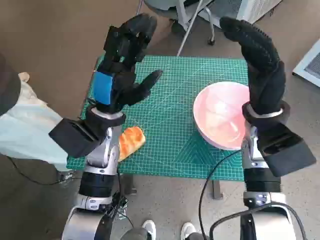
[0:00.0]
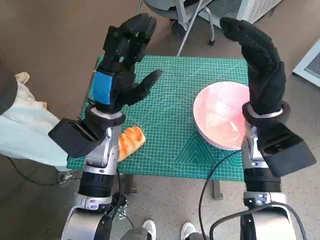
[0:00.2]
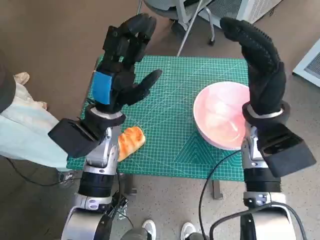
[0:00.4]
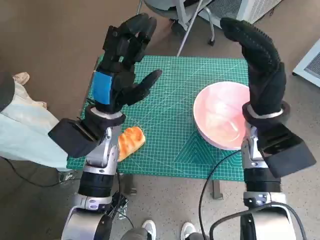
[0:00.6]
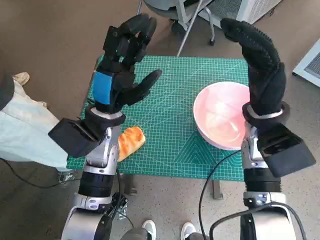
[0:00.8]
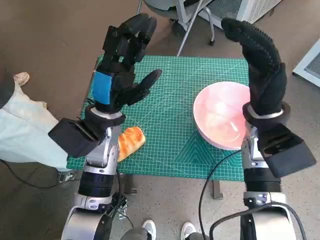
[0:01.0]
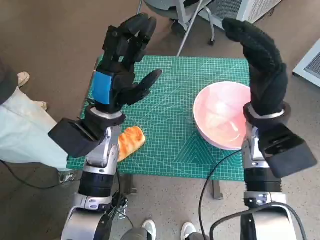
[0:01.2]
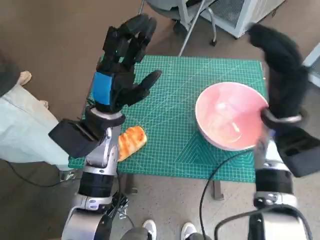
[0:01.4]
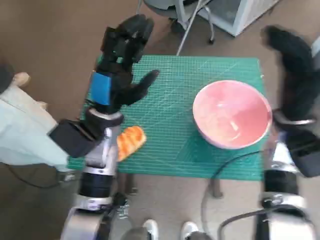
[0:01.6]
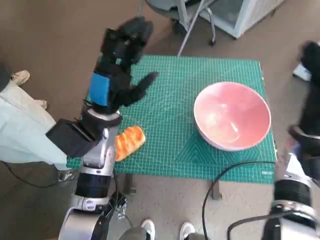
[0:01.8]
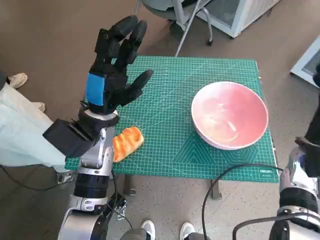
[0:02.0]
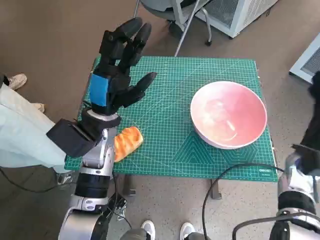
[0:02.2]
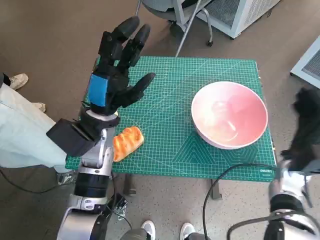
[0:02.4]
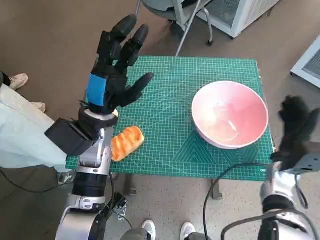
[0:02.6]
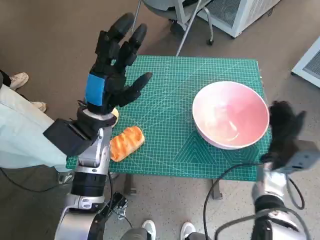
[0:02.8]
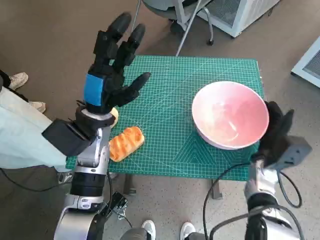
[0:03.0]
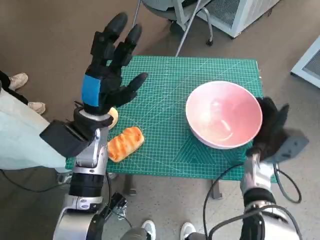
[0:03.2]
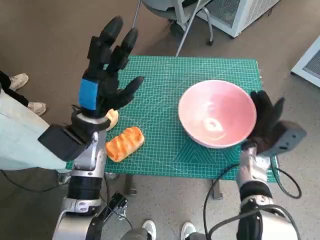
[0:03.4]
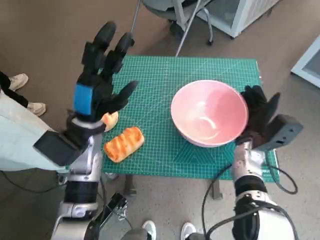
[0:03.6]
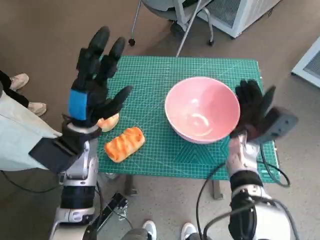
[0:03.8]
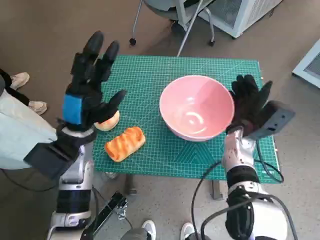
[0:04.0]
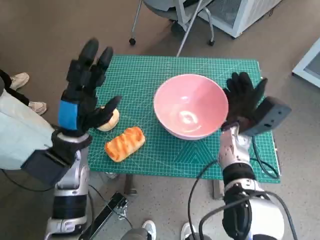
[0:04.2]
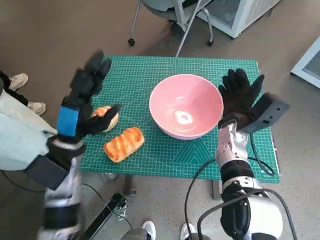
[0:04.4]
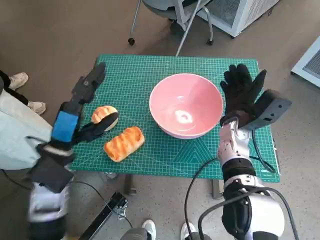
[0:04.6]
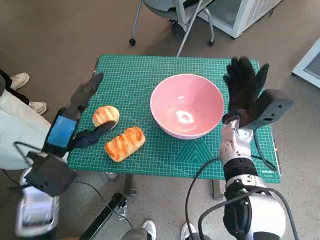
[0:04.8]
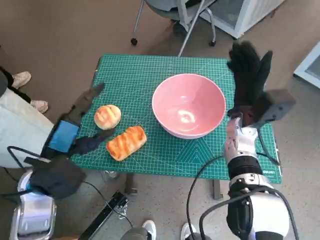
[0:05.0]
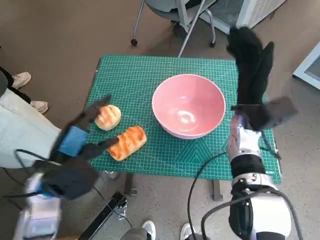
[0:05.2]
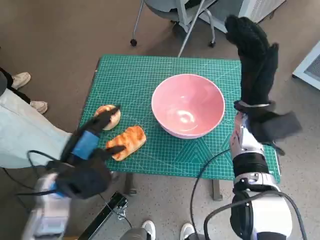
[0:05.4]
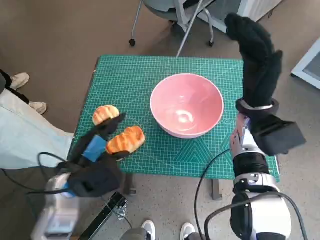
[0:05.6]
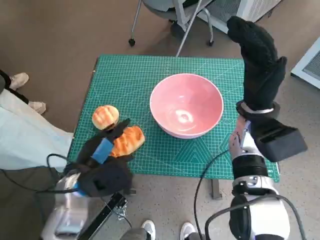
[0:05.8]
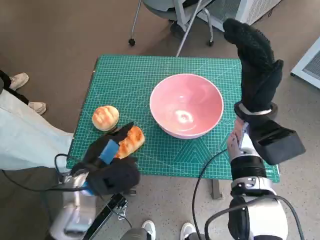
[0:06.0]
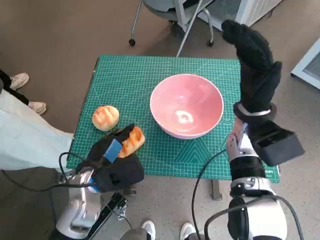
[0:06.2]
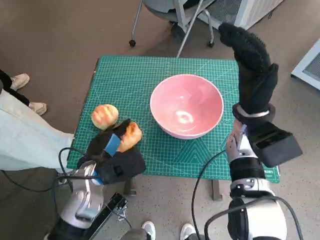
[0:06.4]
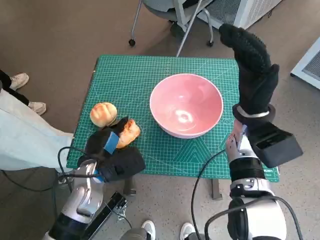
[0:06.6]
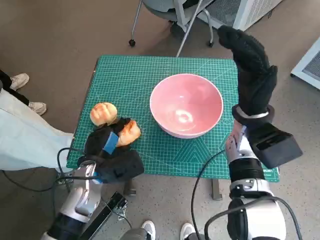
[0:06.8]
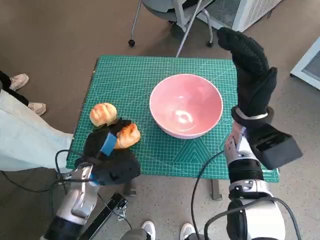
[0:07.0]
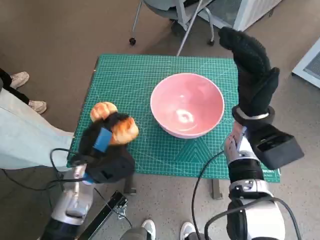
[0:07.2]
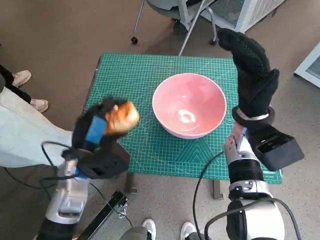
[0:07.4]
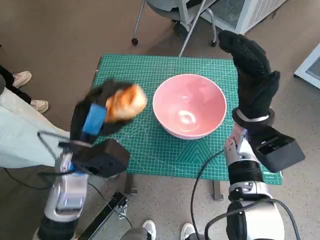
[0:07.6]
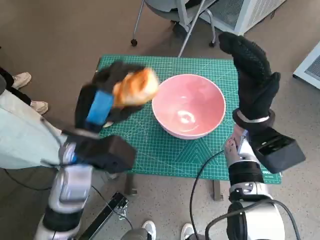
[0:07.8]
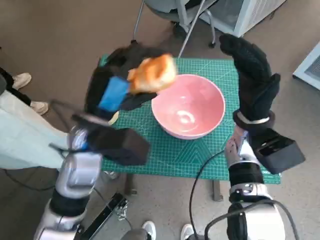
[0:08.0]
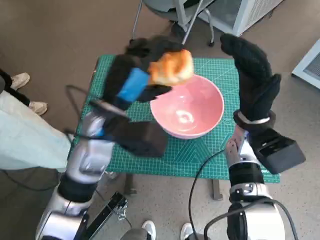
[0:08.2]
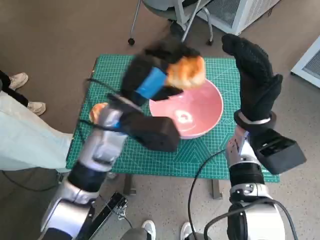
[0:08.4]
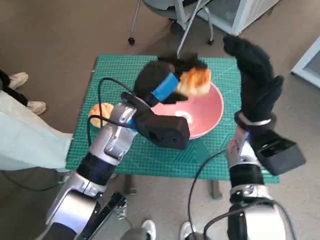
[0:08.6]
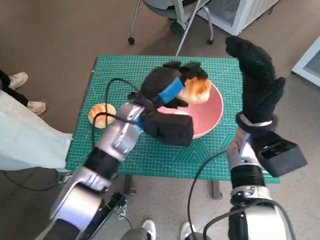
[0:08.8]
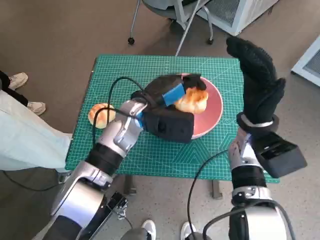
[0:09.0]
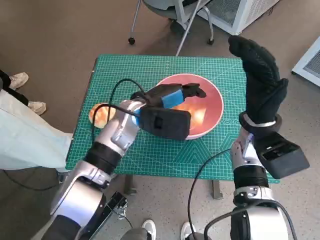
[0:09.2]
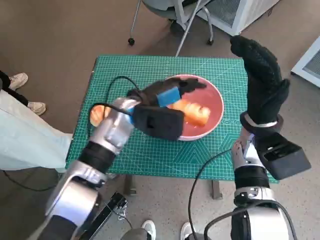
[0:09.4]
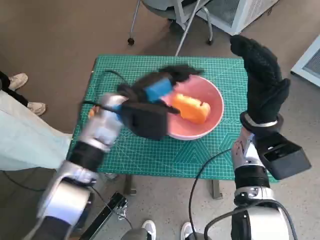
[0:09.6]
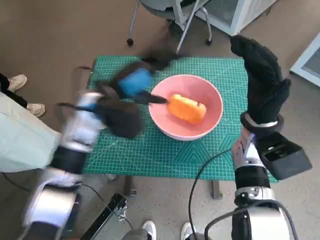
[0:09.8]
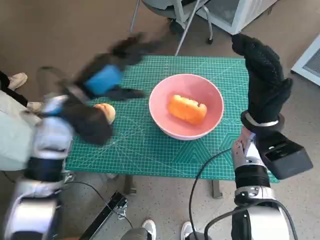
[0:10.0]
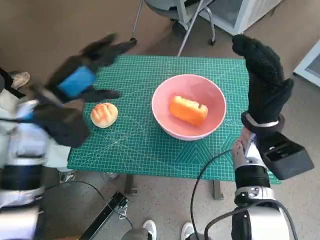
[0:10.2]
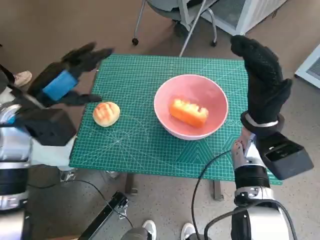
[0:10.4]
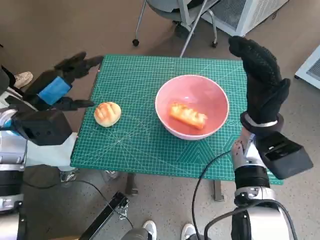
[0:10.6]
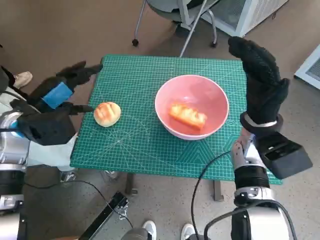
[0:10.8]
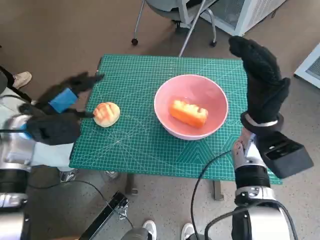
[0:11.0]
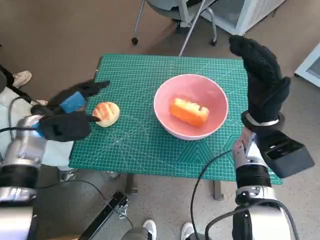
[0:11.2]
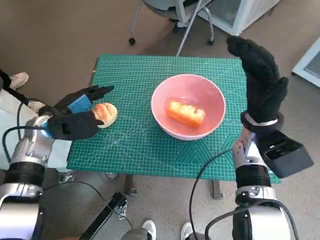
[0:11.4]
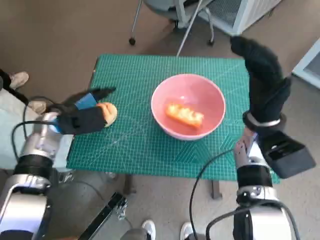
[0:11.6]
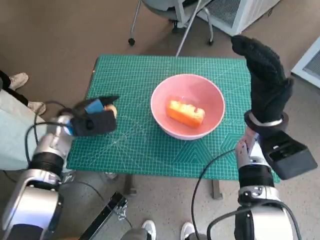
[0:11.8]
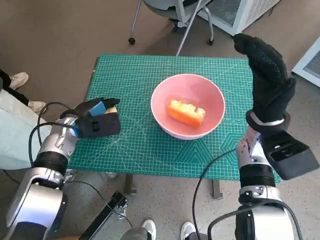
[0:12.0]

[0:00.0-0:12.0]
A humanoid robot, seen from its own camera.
Task of the whole recording: Push the bowl to the center of the table and put the bread into the bowl.
Step, 0:00.0 to 0:04.6: Move the pink bowl to the center of table with right hand.
Step, 0:04.8 to 0:06.6: Grasp the long bread with left hand.
Step, 0:06.8 to 0:09.2: Place the long bread in pink bowl with left hand.
0:01.6 to 0:03.0: The right hand goes about 15 cm downward.
0:03.0 to 0:04.4: The left hand travels to the left by about 5 cm, while the right hand is displaced to the left, upward and forward by some 10 cm.
0:04.4 to 0:06.0: The left hand shifts by roughly 5 cm. The right hand moves upward, some 5 cm.
0:06.0 to 0:07.6: The left hand ends up approximately 5 cm from where it was.
0:07.6 to 0:09.0: The left hand moves forward and to the right, some 15 cm.
0:09.0 to 0:10.4: The left hand travels to the left by approximately 20 cm.
0:10.4 to 0:12.0: The left hand travels downward by some 10 cm.

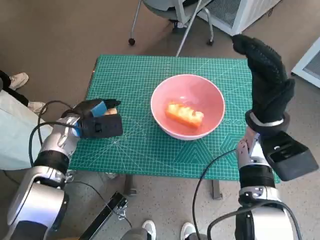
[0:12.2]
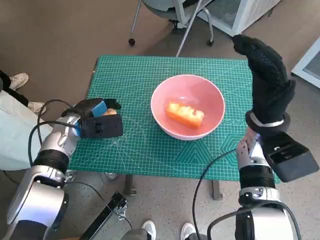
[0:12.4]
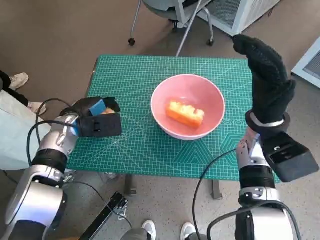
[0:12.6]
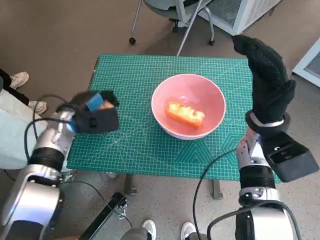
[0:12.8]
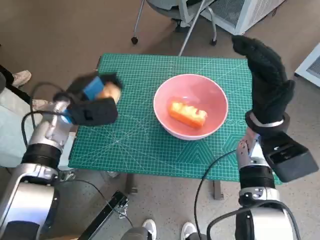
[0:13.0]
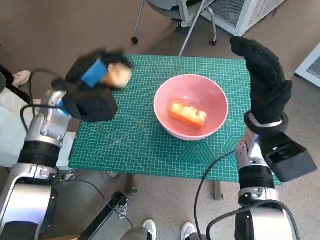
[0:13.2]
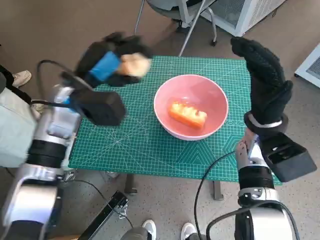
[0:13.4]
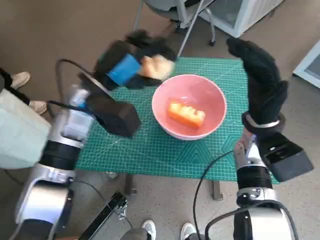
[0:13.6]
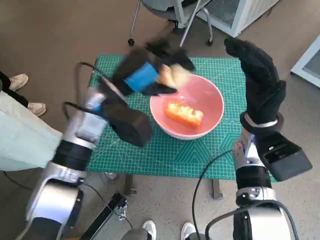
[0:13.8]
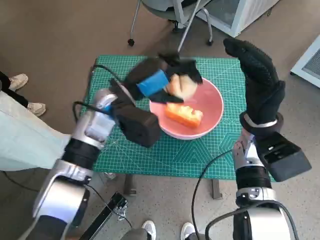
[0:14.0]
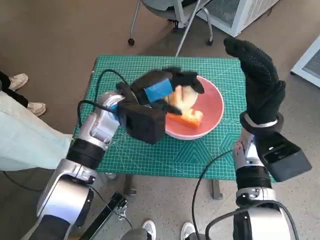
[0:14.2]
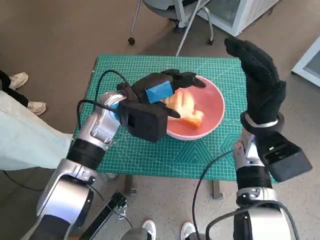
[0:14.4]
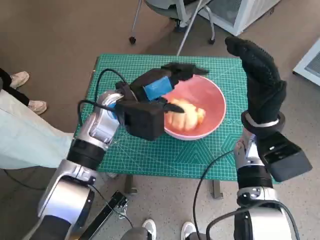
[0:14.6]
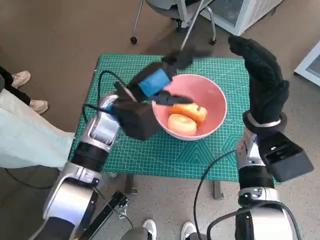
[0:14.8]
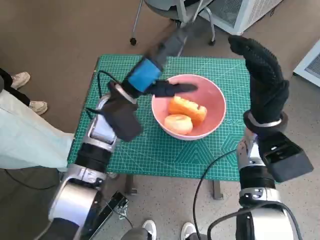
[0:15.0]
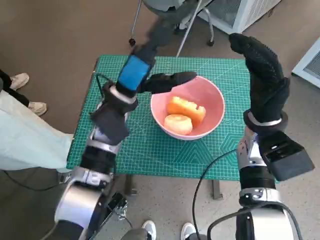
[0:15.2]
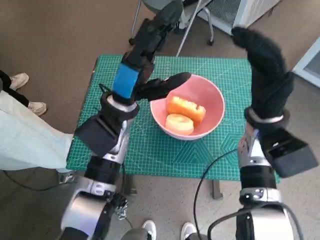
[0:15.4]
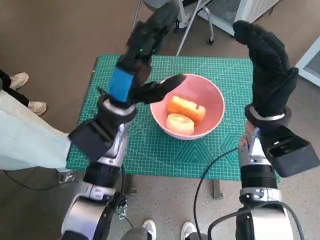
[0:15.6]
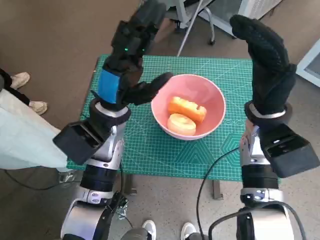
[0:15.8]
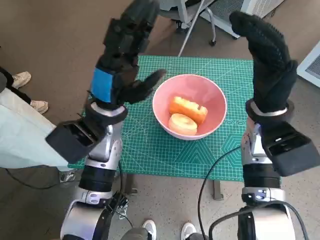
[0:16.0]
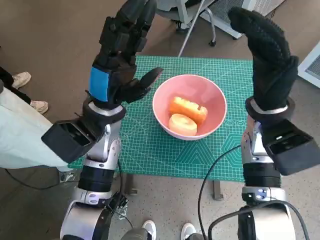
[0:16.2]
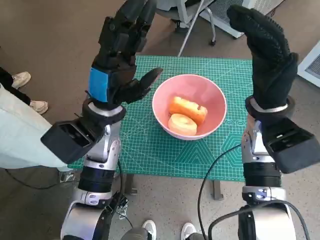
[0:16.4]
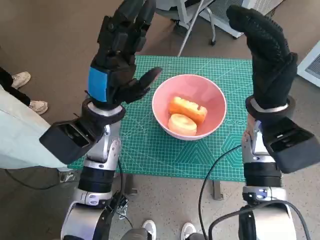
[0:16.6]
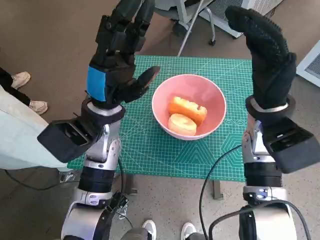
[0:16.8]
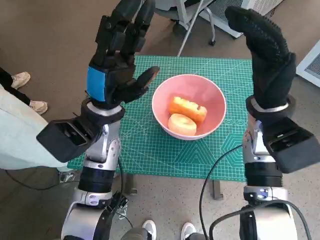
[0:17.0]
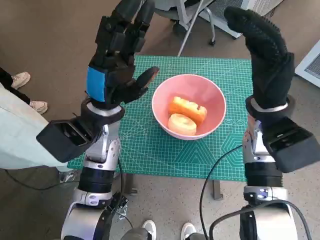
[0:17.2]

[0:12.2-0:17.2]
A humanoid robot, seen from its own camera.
Task of the whole recording: Push the bowl to the center of the table and put the bread into the bowl.
Step, 0:12.6 to 0:14.4: Place the round bread in pink bowl with left hand.
0:12.2 to 0:13.8: The left hand goes approximately 15 cm upward and to the right.

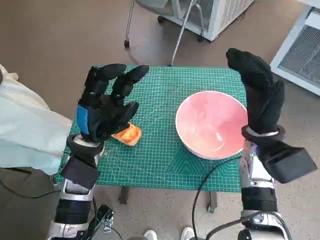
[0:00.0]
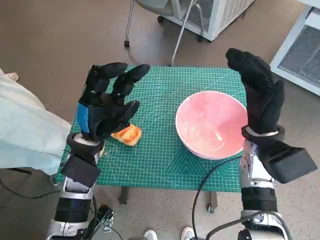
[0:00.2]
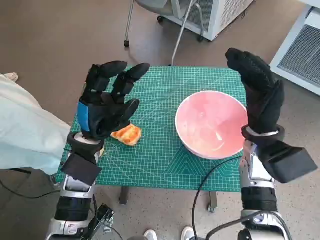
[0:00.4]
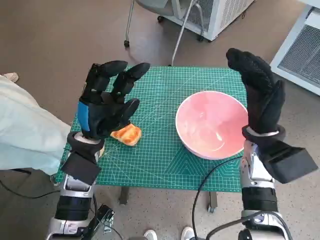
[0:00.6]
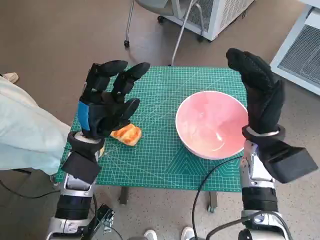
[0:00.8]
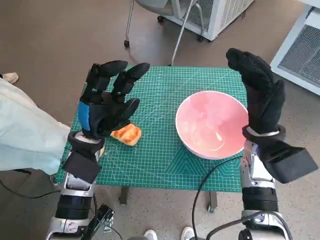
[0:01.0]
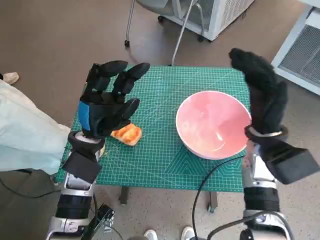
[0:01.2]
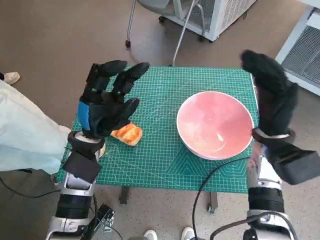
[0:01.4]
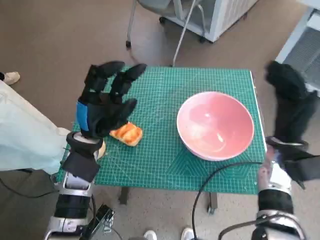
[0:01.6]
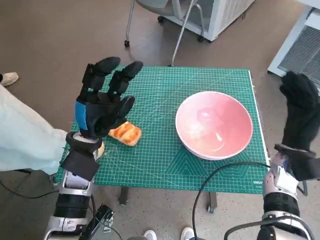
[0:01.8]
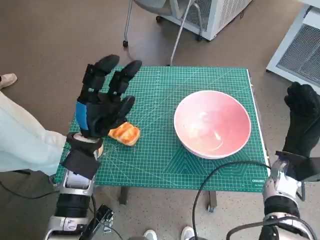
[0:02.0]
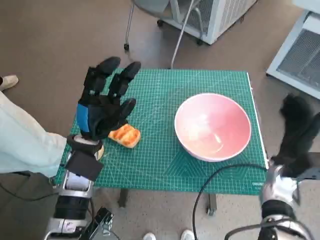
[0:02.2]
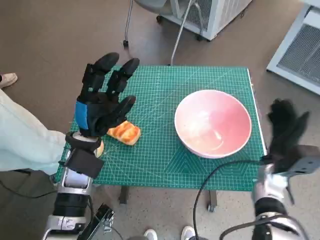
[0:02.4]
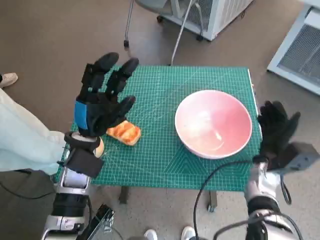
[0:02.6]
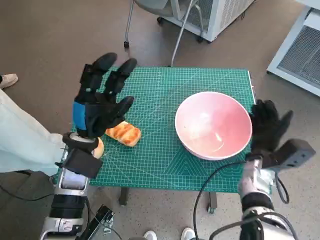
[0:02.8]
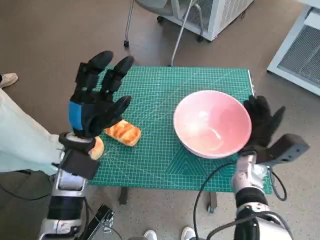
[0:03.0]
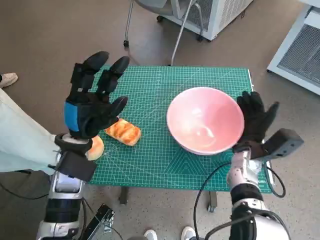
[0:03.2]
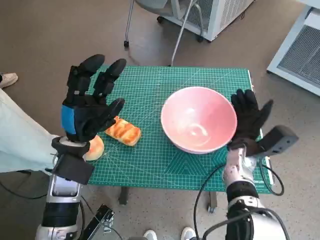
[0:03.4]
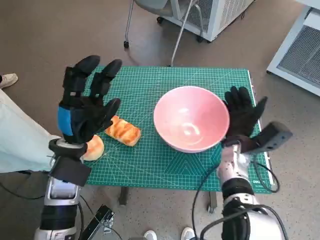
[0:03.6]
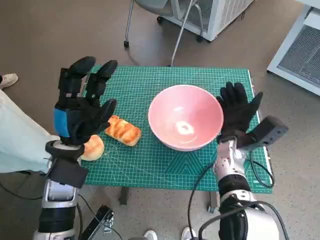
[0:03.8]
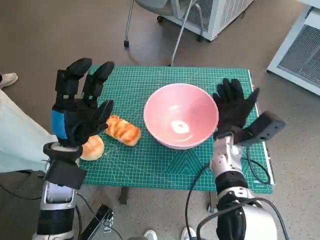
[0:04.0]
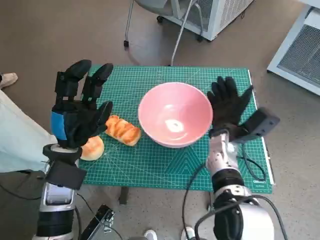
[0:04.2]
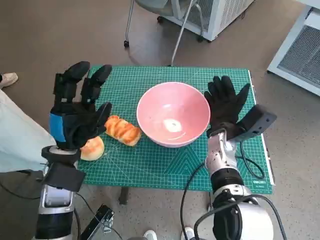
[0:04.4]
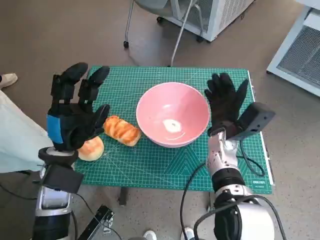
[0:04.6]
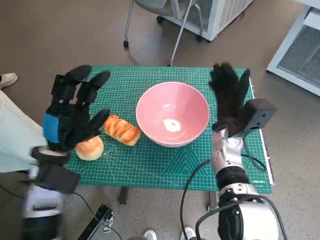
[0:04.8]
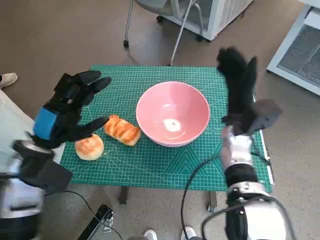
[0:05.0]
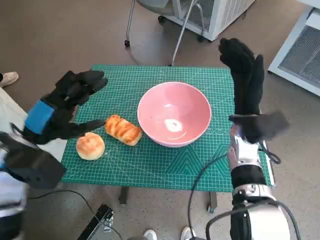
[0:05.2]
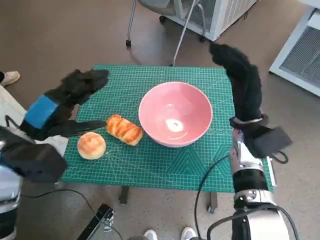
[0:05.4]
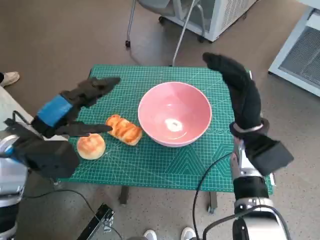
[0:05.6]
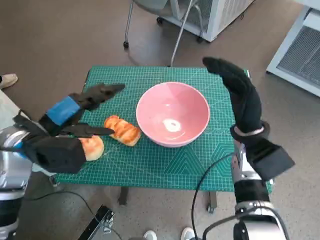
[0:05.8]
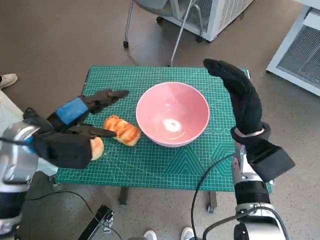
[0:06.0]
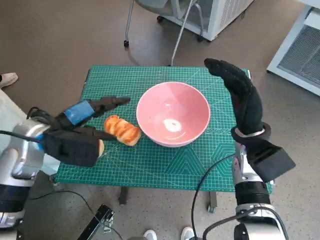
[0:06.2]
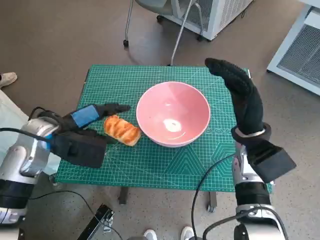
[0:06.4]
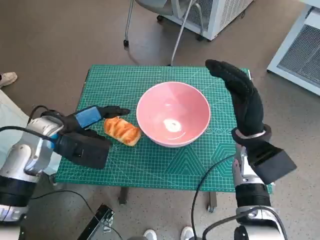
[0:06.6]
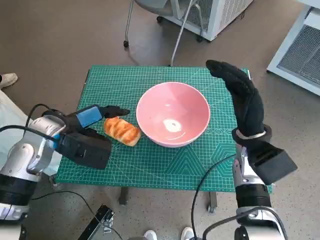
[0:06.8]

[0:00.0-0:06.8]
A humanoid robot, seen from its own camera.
Task of the whole recording: Push the bowl to the center of the table and put the bread into the bowl.
Step, 0:00.0 to 0:04.6: Move the pink bowl to the center of table with right hand.
0:01.4 to 0:02.8: The right hand heads downward, covering roughly 10 cm.
0:02.8 to 0:04.0: The right hand moves to the left, approximately 10 cm.
0:04.0 to 0:05.4: The left hand heads upward and to the left, covering approximately 10 cm. The right hand travels upward by approximately 5 cm.
0:05.4 to 0:06.8: The left hand heads forward, covering approximately 5 cm.
